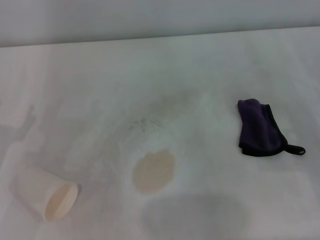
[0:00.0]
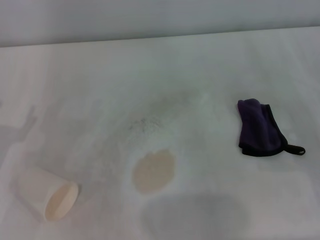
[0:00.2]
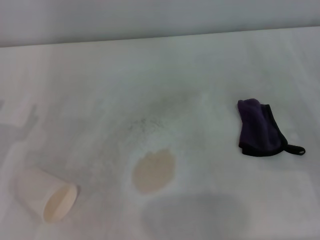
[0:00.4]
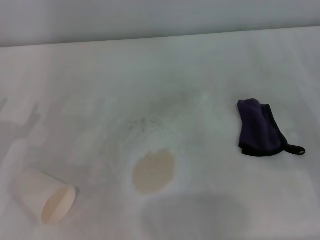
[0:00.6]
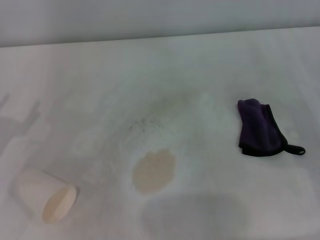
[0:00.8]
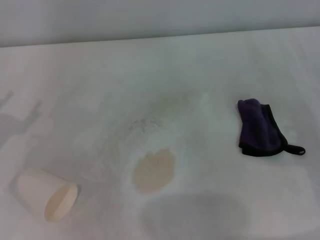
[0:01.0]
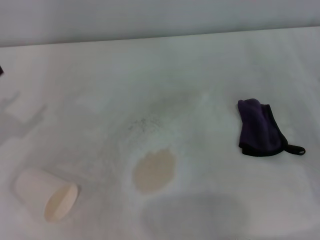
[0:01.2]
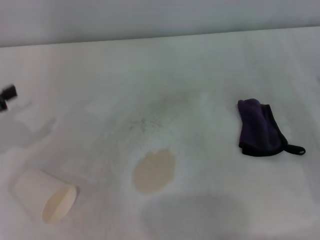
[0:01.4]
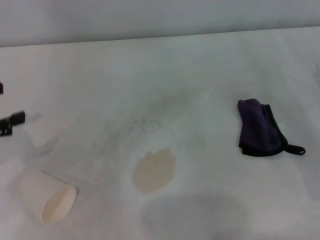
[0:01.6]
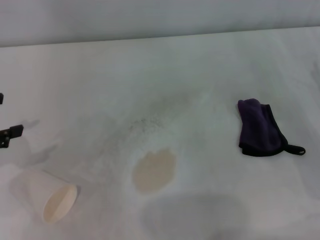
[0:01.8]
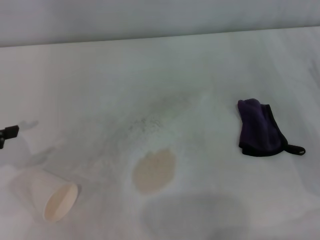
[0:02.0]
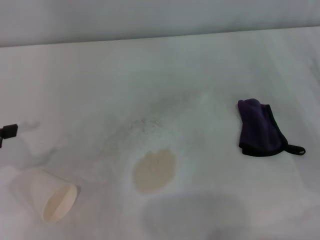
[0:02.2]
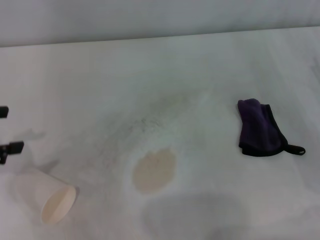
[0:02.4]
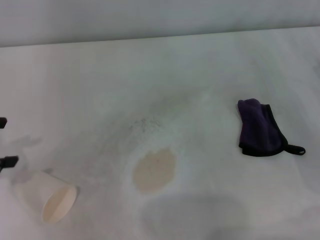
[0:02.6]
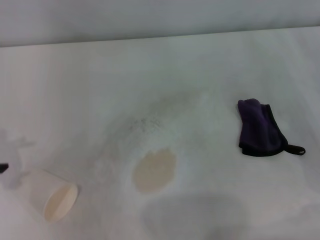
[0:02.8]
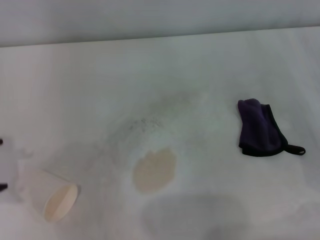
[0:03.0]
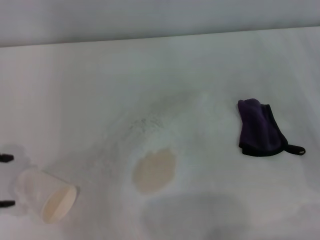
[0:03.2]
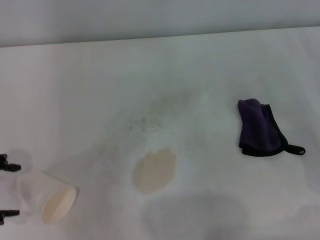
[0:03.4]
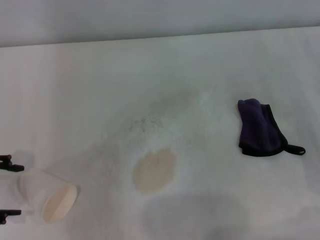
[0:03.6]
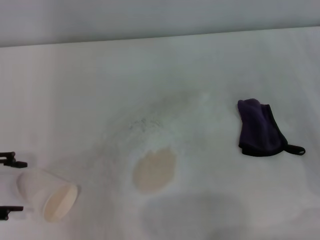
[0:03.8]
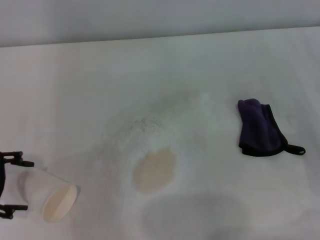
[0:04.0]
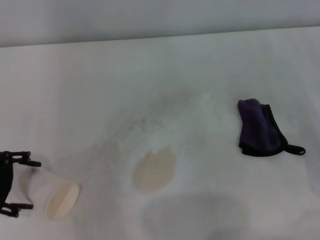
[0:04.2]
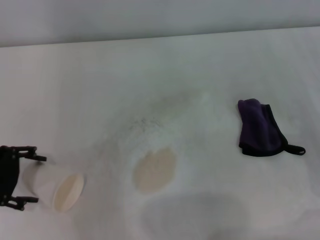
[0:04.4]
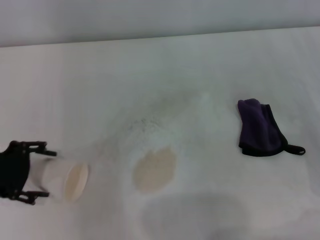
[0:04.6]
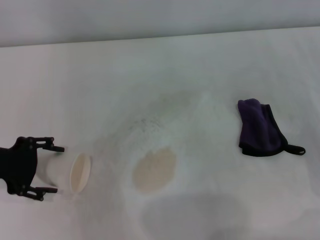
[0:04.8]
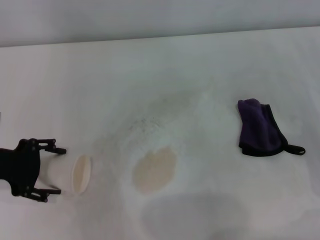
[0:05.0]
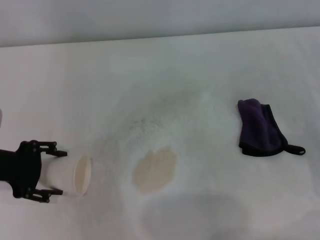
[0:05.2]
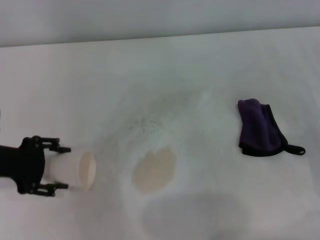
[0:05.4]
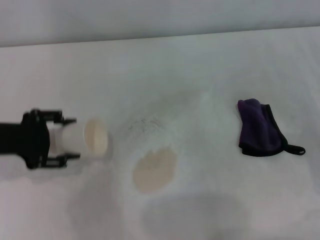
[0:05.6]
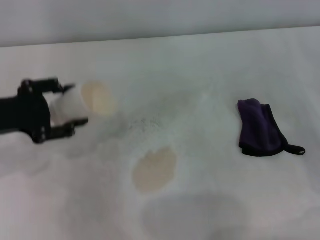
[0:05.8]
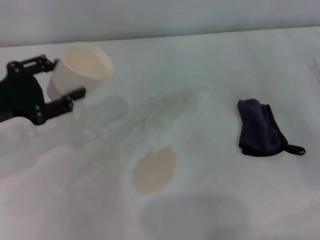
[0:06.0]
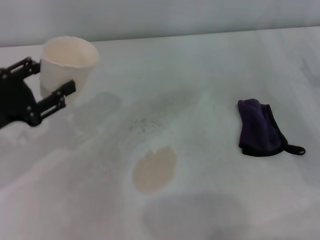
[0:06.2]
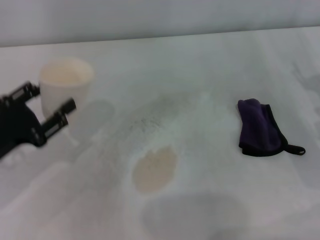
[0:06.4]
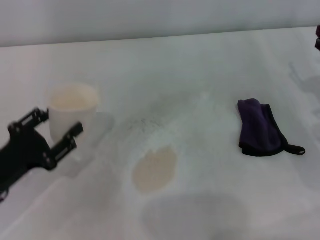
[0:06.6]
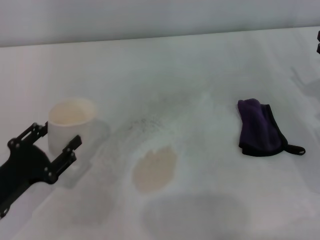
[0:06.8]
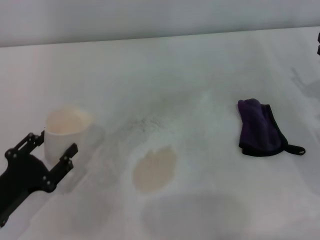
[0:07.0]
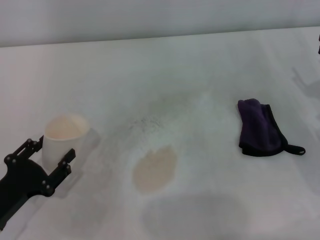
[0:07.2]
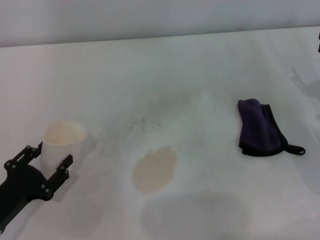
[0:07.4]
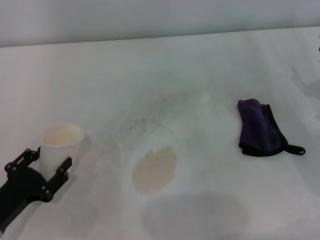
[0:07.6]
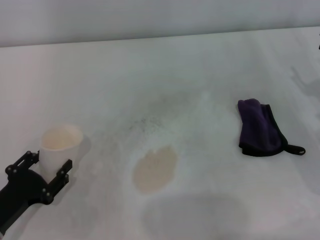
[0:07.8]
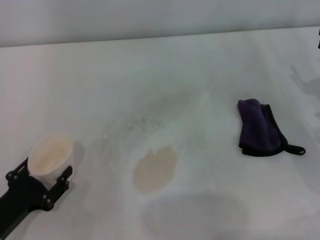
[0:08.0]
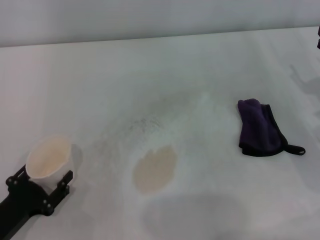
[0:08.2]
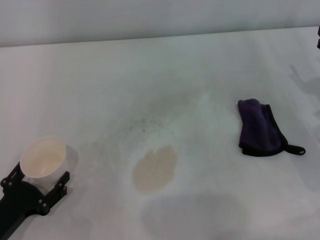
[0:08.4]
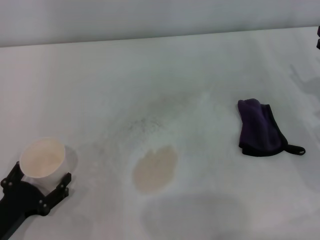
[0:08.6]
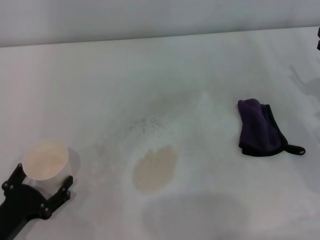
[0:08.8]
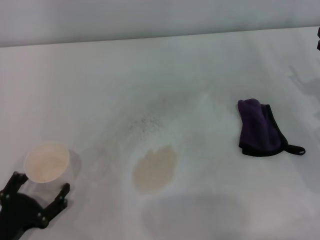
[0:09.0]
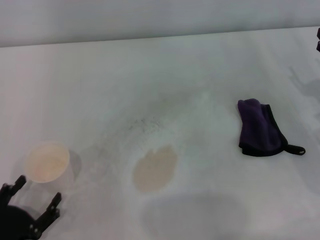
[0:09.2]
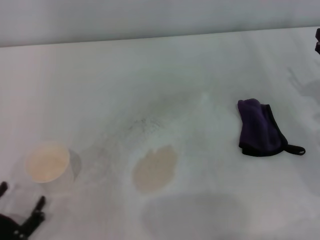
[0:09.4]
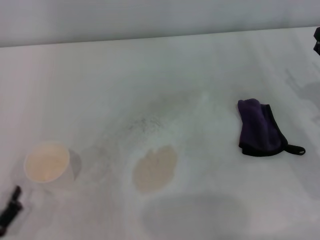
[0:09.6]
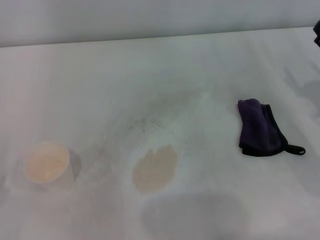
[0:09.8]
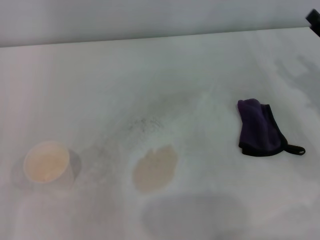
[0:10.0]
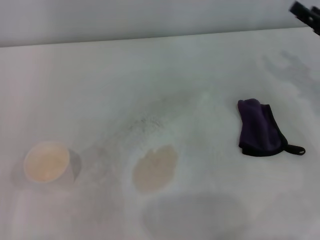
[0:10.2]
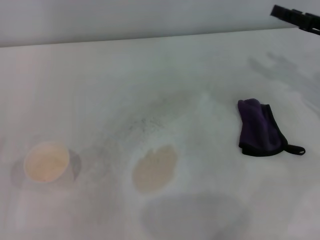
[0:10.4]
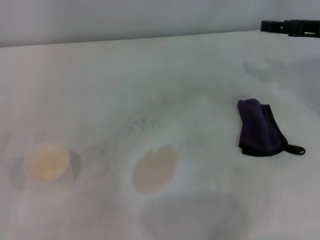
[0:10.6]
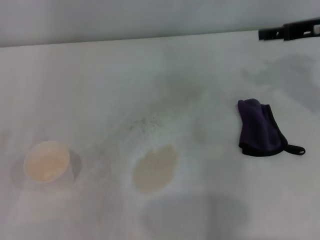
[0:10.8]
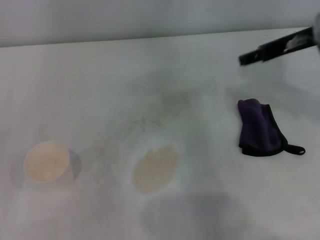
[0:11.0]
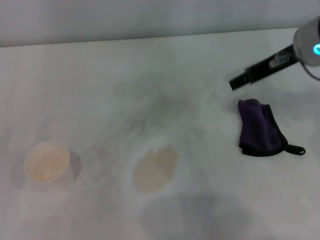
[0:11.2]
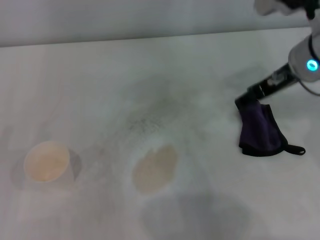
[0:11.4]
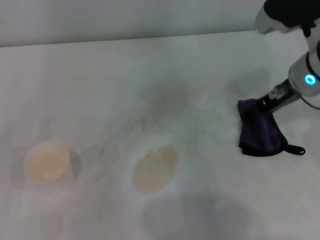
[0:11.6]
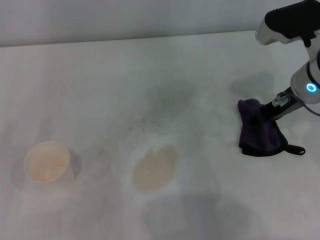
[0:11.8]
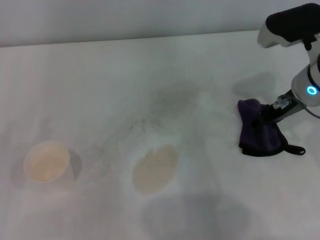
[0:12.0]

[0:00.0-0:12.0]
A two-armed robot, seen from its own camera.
Step, 0:00.0 to 0:05.2: Grasp the paper cup with the left gripper.
Step, 0:05.4 to 0:09.0: Stand the paper cup upright with the left gripper.
0:00.0 to 0:01.6: The left gripper shifts some 10 cm upward.
0:03.0 to 0:04.4: The left gripper is displaced downward and to the right by approximately 10 cm.
0:04.4 to 0:06.0: The left gripper closes.
0:06.0 to 0:07.6: The left gripper shifts some 20 cm downward and backward.
0:07.6 to 0:09.0: The left gripper opens its fingers.
0:09.0 to 0:10.4: The left gripper goes roughly 10 cm to the left and upward; the right gripper travels upward and forward by some 10 cm.
0:10.4 to 0:12.0: The right gripper shifts some 10 cm to the left.

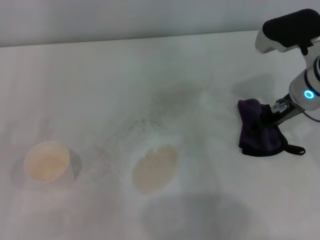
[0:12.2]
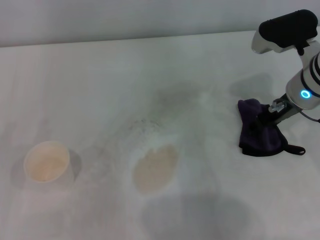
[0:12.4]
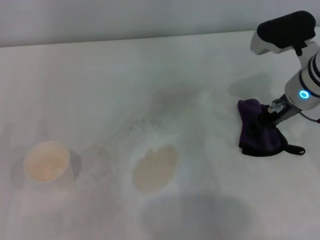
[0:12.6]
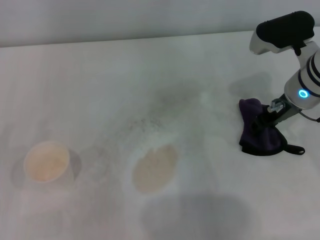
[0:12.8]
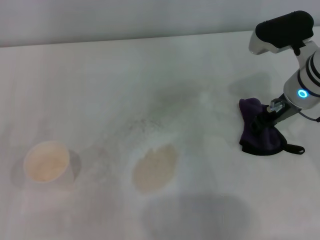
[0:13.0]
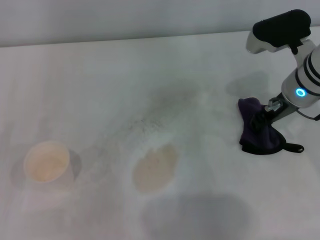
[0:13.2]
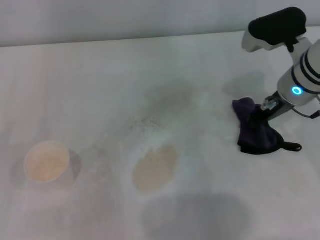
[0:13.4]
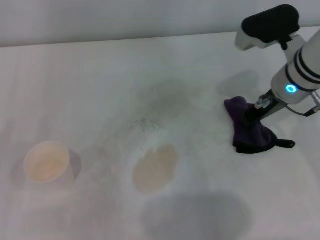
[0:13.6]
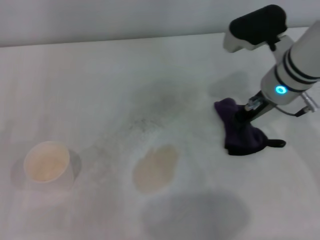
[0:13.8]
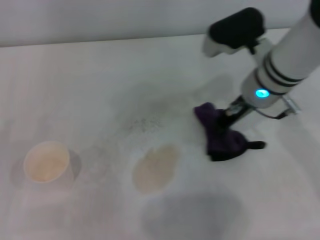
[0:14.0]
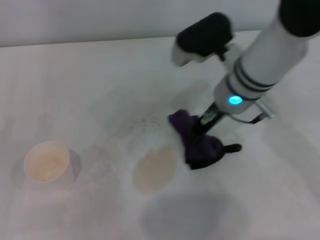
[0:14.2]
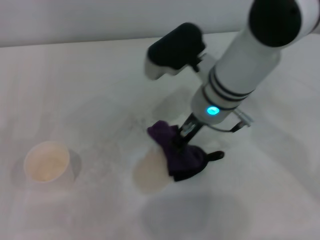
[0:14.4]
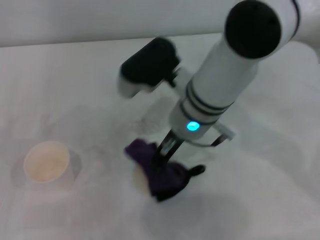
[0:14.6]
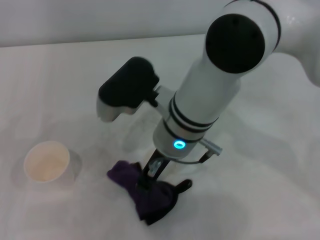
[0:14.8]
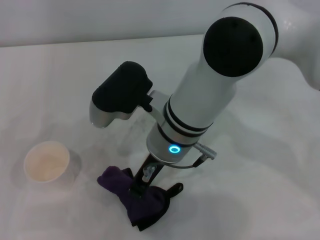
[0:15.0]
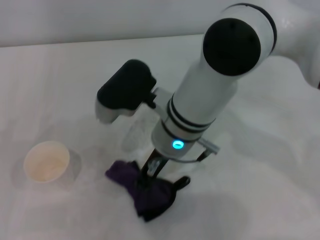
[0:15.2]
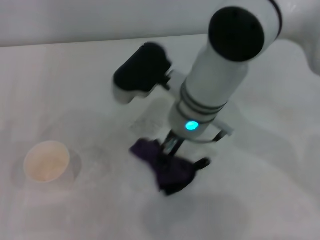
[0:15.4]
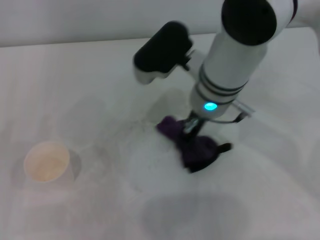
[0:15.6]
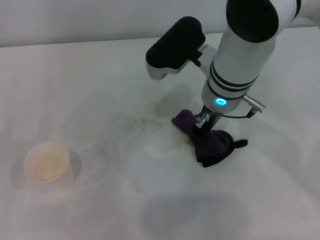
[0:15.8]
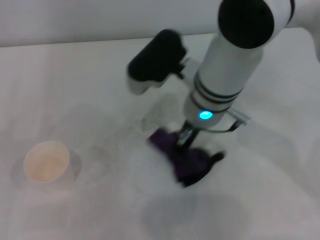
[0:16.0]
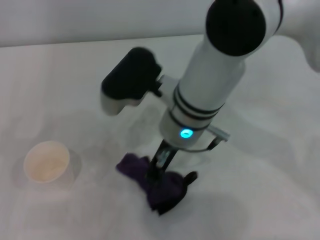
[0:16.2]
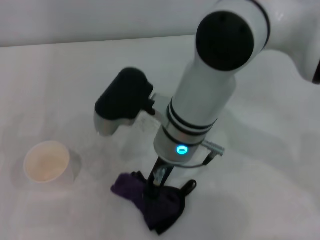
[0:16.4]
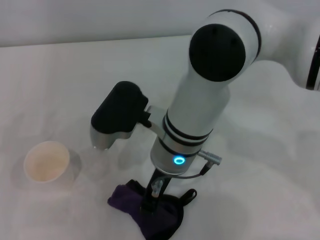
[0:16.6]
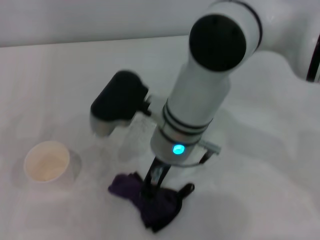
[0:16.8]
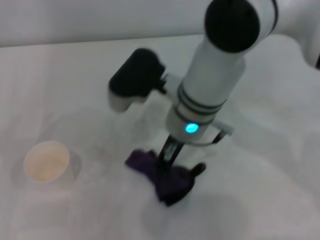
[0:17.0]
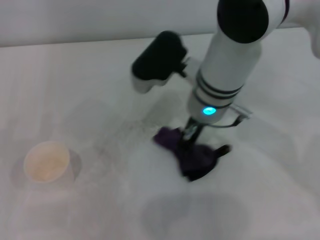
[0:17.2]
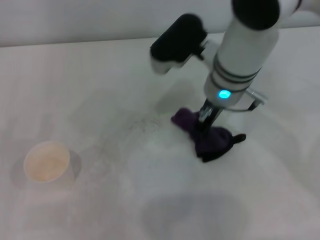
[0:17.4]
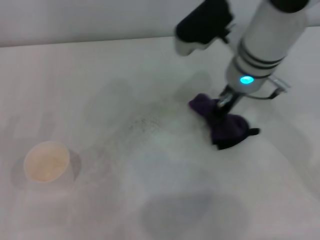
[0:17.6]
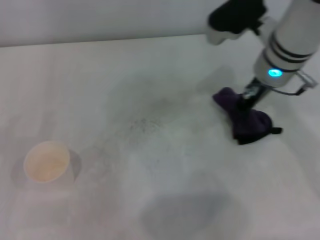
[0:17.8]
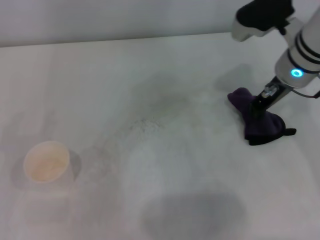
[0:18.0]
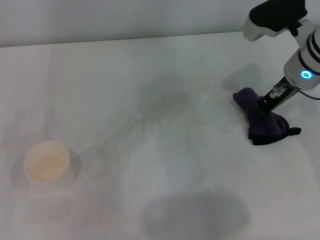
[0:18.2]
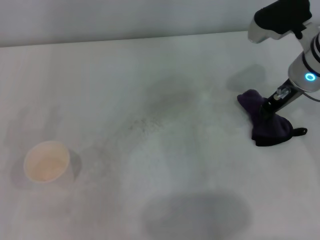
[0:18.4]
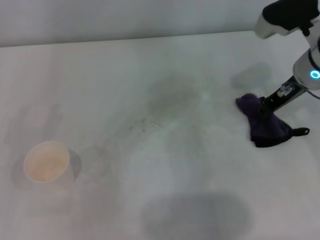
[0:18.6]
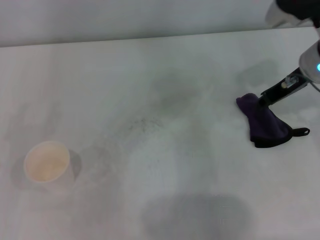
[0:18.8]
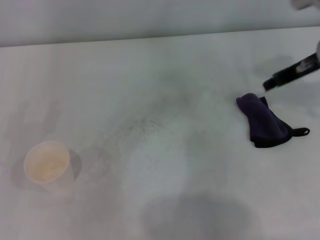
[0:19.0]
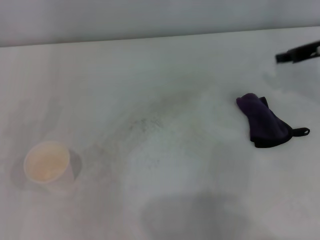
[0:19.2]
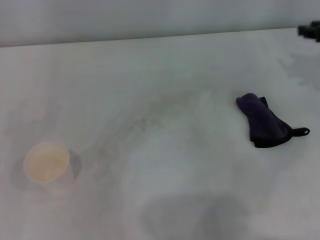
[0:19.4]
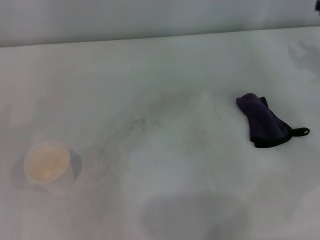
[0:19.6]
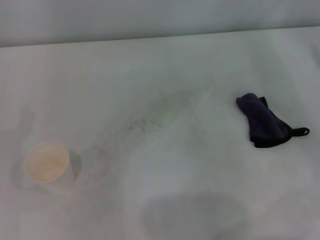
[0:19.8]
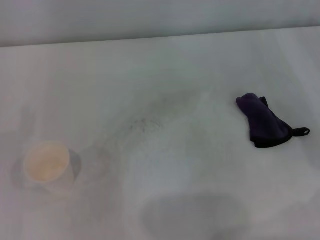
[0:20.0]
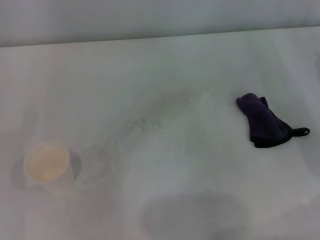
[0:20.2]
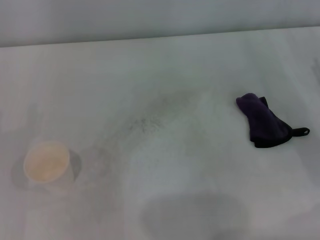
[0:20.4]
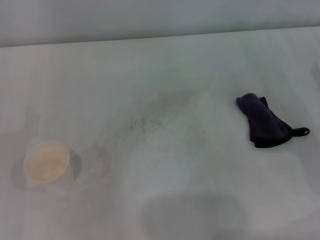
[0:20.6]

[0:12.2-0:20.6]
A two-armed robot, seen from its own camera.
Step, 0:13.2 to 0:17.6: Wipe the stains off the table with the right gripper.
Step, 0:18.0 to 0:18.4: Place the rag on the table with the right gripper.
0:12.2 to 0:13.6: The right gripper closes up.
0:13.6 to 0:15.0: The right gripper heads to the left, covering some 20 cm.
0:16.4 to 0:17.8: The right gripper is displaced to the right and forward by approximately 15 cm.
0:17.8 to 0:19.2: The right gripper shifts about 15 cm to the right.
0:19.2 to 0:20.6: The right gripper travels downward and backward by about 15 cm.

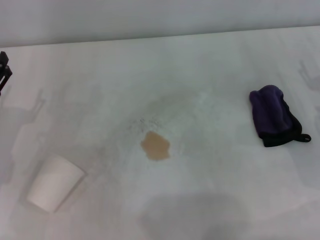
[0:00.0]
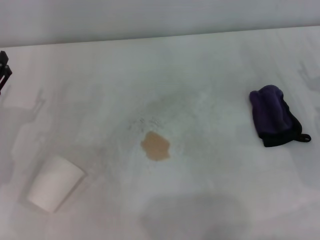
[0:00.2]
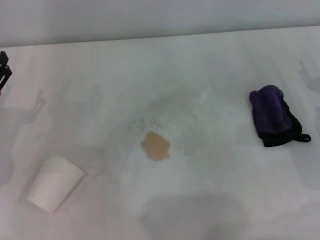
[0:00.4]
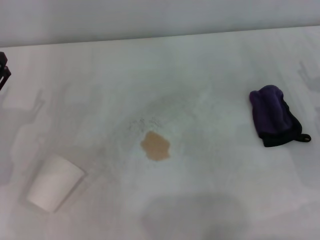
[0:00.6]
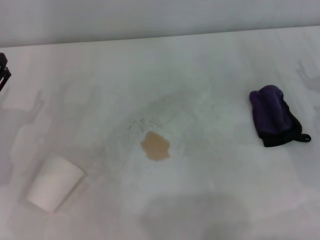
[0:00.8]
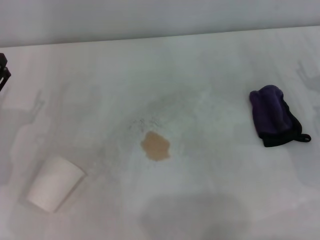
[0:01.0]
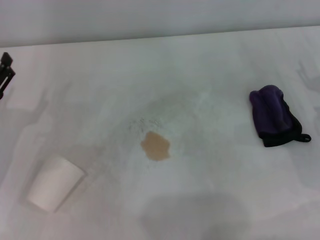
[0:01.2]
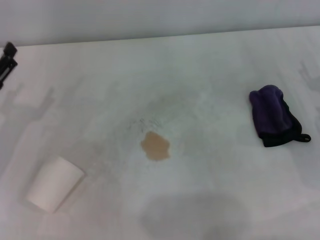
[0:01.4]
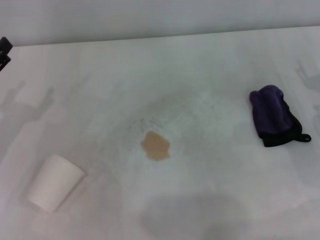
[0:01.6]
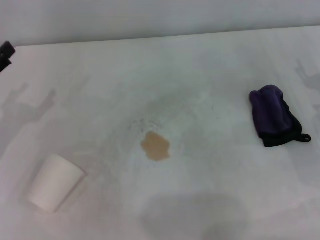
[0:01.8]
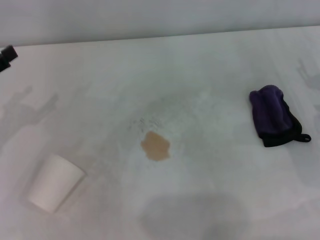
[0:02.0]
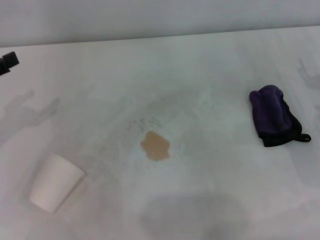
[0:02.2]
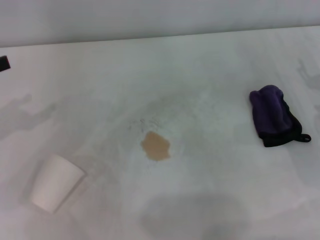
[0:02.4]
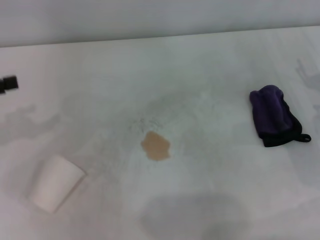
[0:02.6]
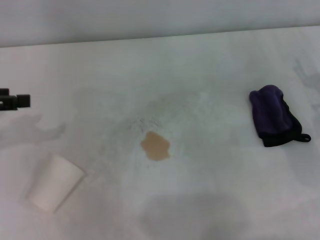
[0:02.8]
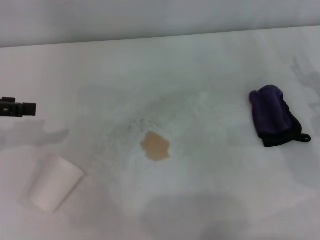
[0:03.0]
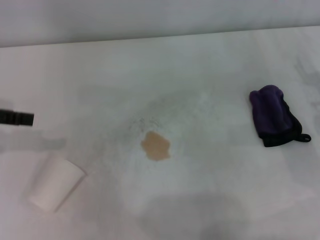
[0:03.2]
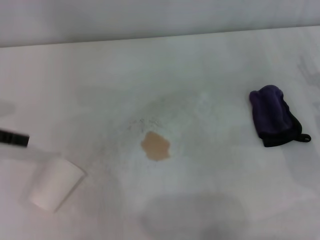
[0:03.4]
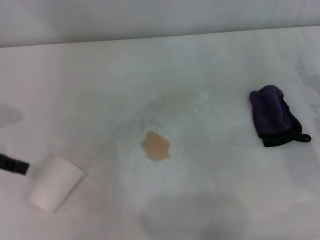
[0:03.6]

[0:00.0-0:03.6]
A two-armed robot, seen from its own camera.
0:01.8 to 0:03.6: The left gripper shifts about 10 cm upward.
